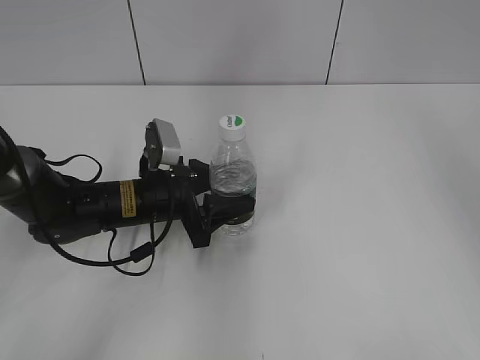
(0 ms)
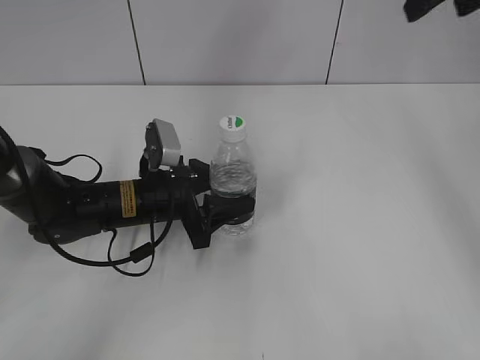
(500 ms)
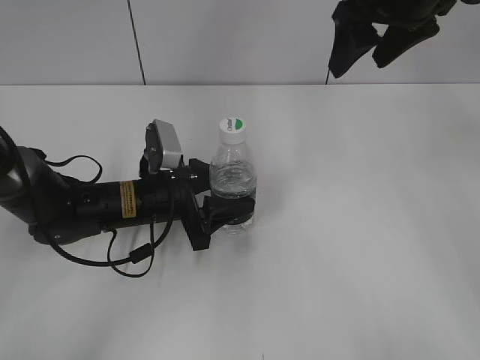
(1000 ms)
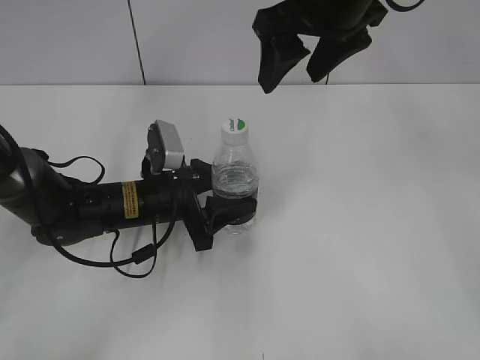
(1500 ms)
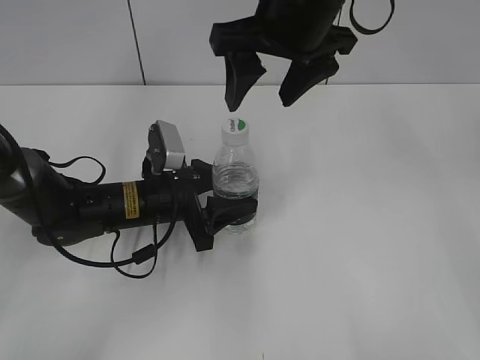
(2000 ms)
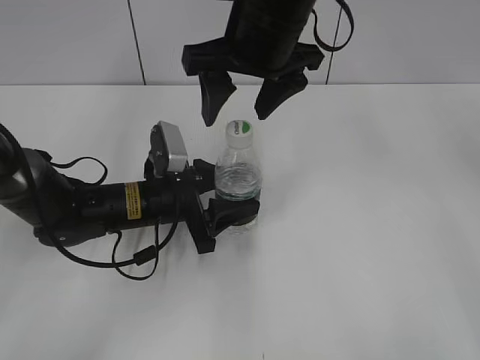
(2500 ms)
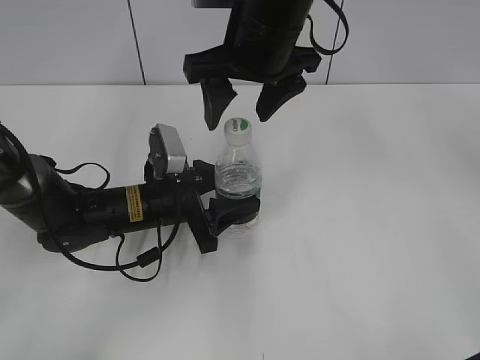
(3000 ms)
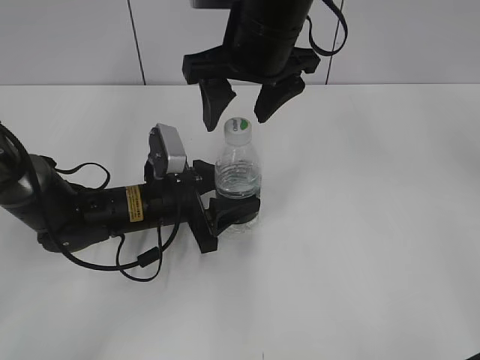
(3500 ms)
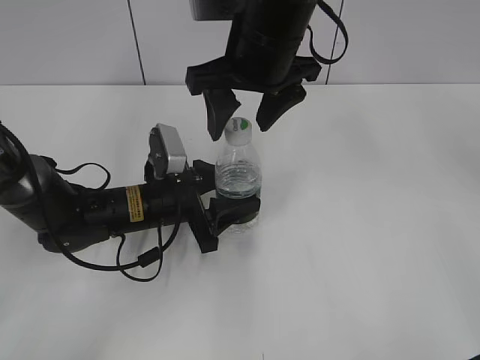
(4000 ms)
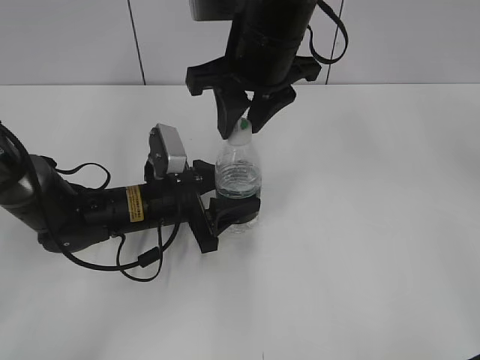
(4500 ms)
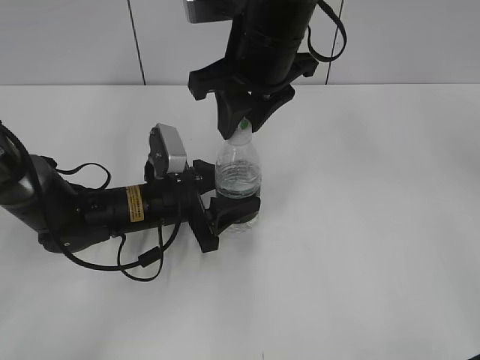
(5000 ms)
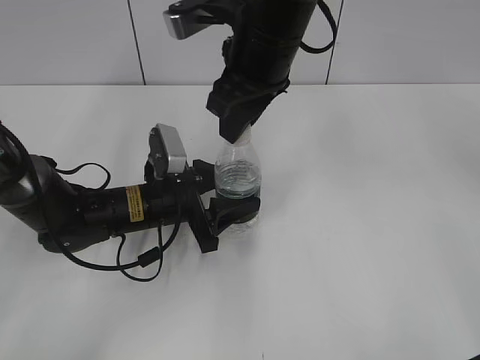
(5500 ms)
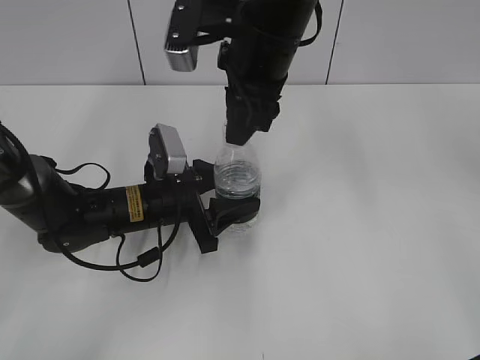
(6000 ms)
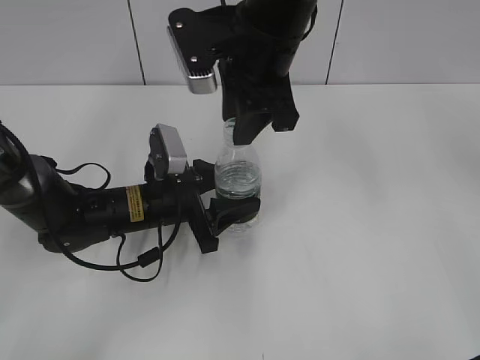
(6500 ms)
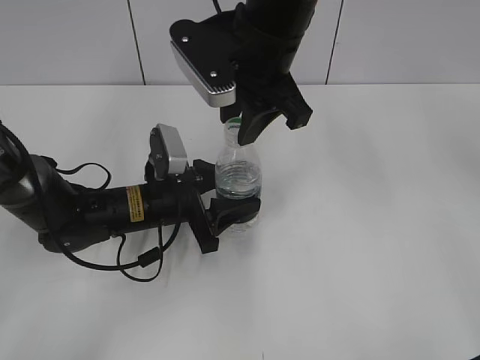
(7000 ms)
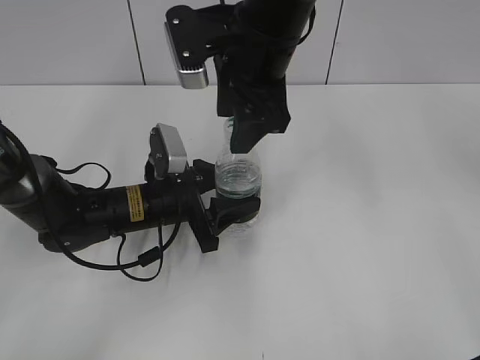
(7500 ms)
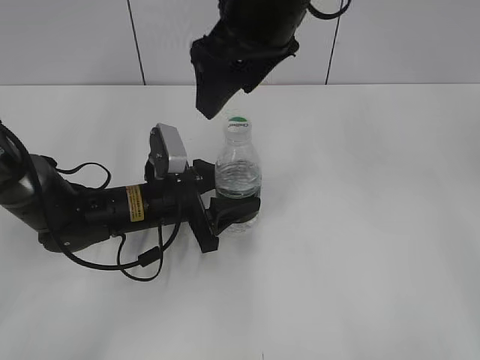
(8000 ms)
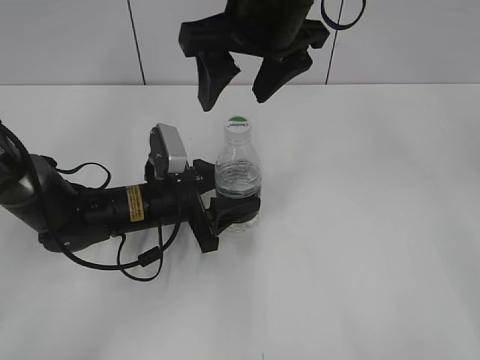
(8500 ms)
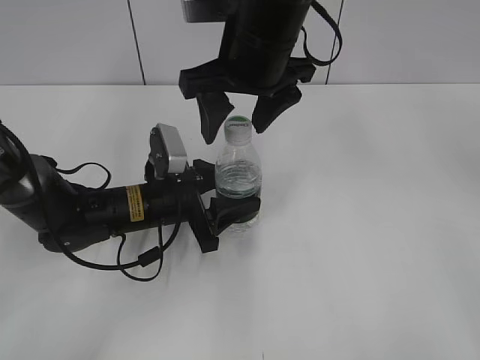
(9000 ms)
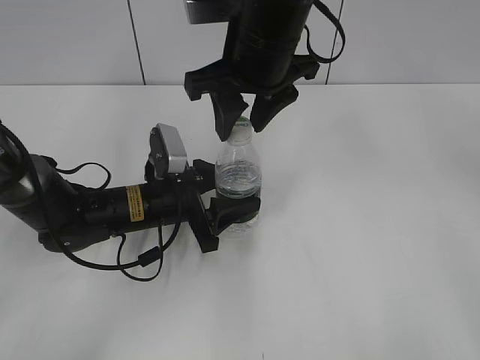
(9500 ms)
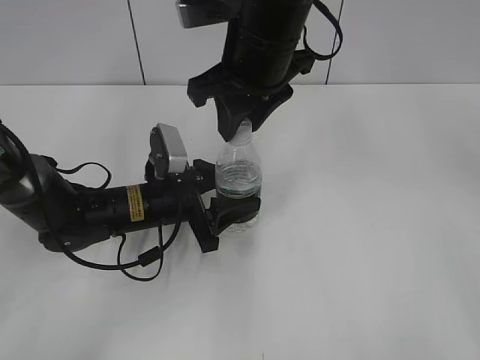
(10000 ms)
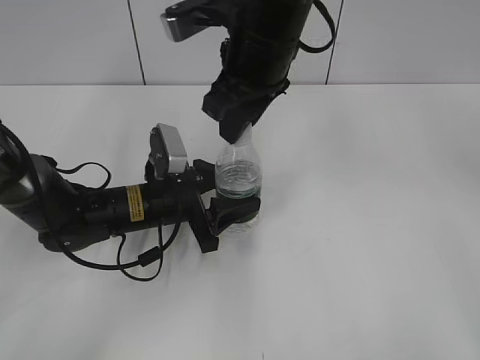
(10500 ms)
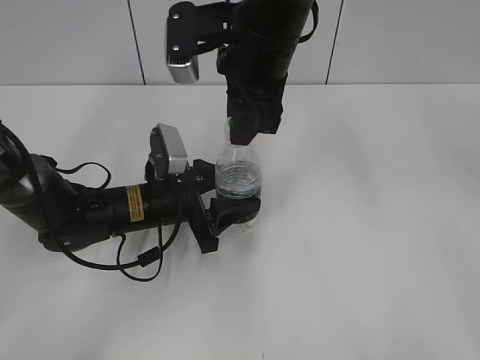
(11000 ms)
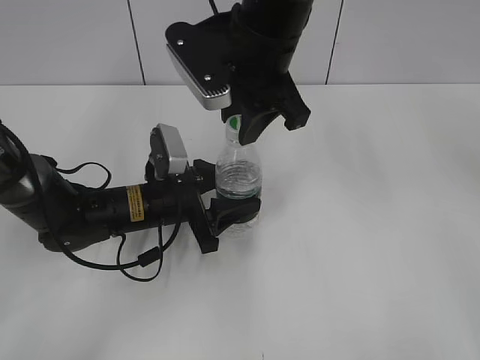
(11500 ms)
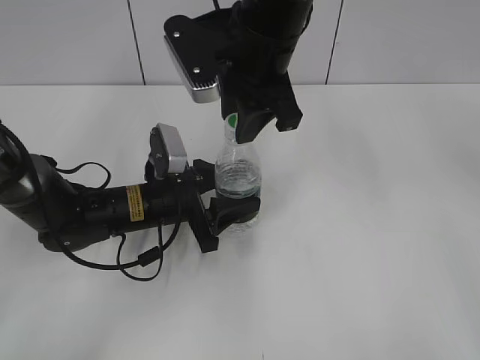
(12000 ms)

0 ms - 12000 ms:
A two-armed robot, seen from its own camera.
0 ms - 2000 ms: The right gripper moves to the left and downward, about 25 cm.
2000 ms - 4000 ms: The grippers move only a little.
4000 ms - 6000 ms: The right gripper closes up.
6000 ms - 8000 ms: The right gripper moves approximately 5 cm, and opens up.
8000 ms - 10000 ms: The right gripper ends up roughly 5 cm from where it was, and closes.

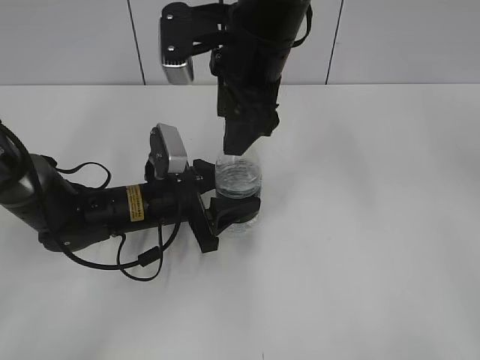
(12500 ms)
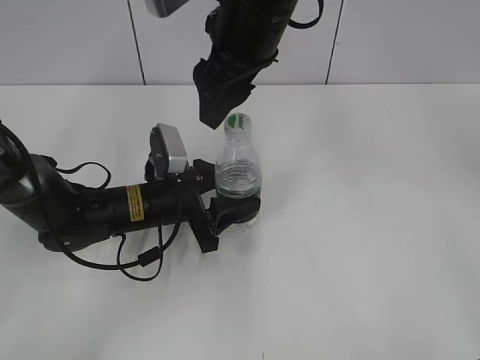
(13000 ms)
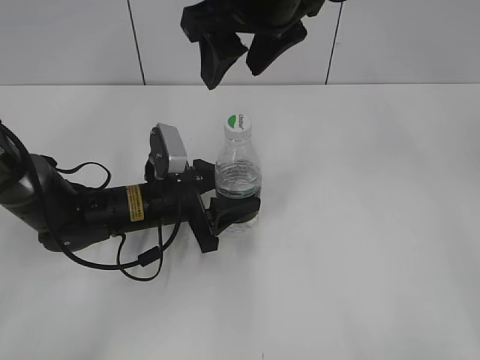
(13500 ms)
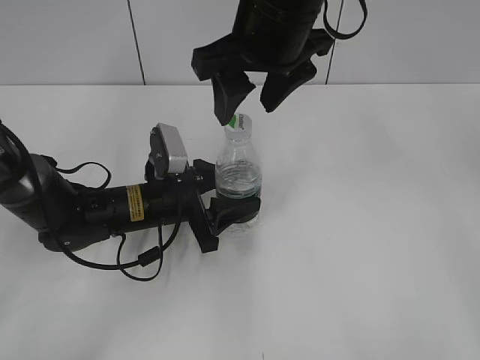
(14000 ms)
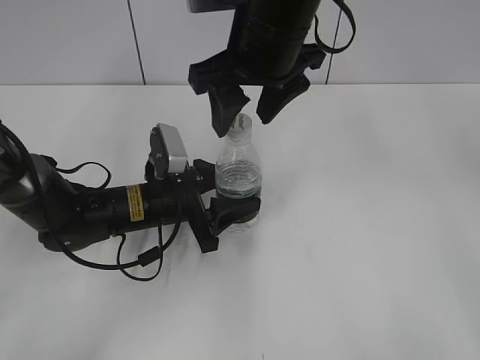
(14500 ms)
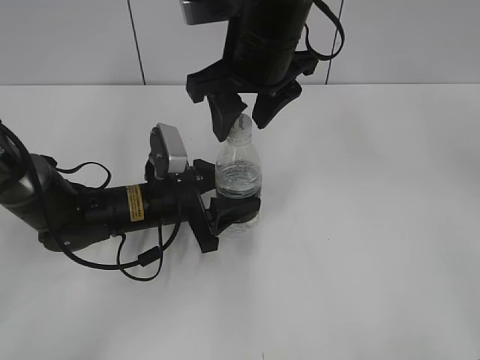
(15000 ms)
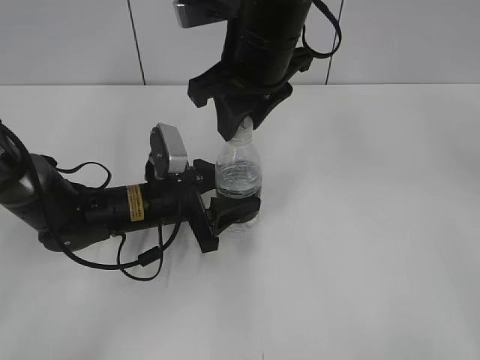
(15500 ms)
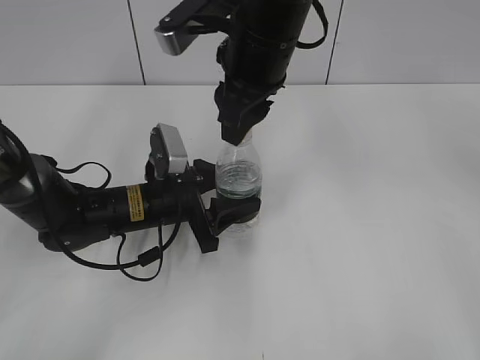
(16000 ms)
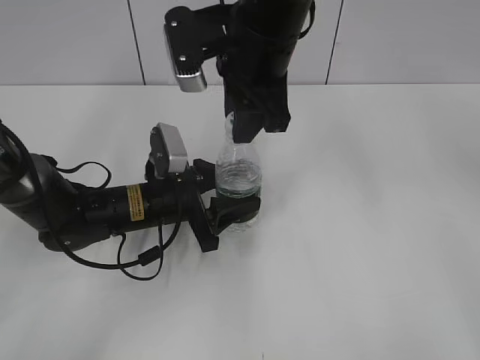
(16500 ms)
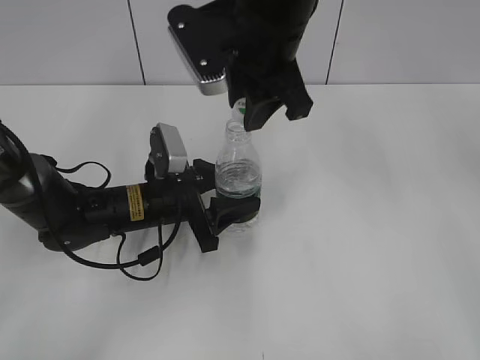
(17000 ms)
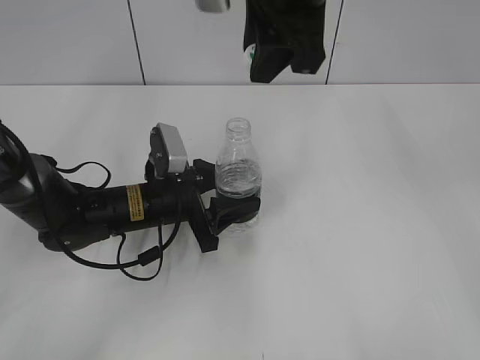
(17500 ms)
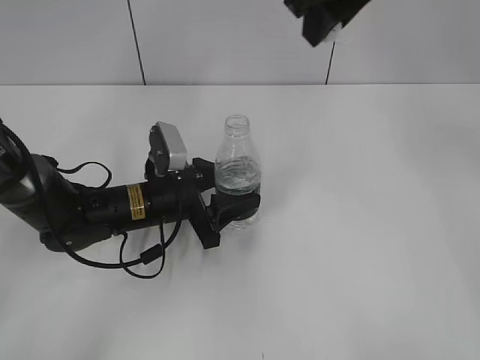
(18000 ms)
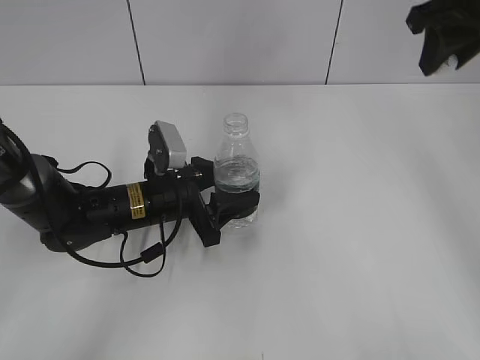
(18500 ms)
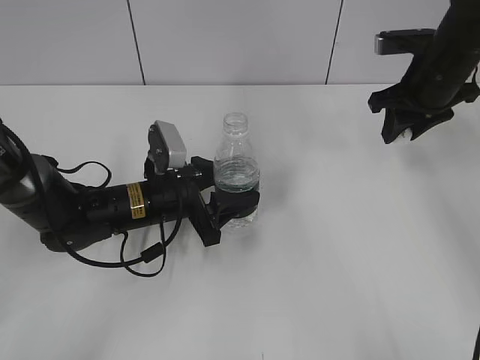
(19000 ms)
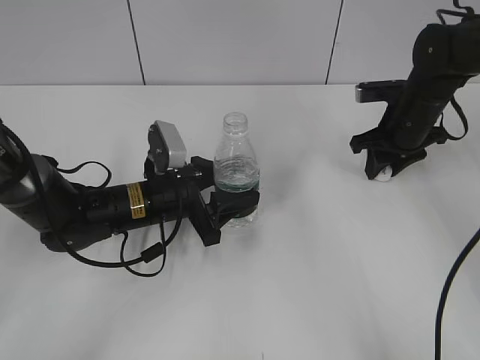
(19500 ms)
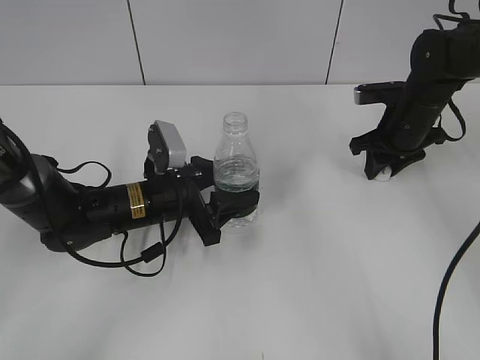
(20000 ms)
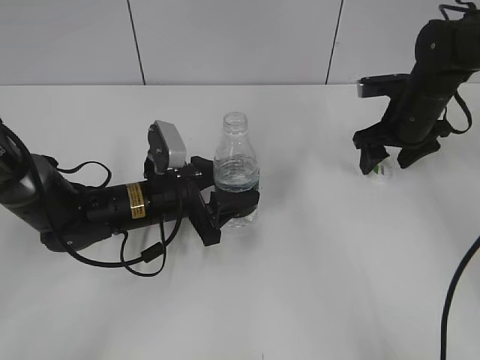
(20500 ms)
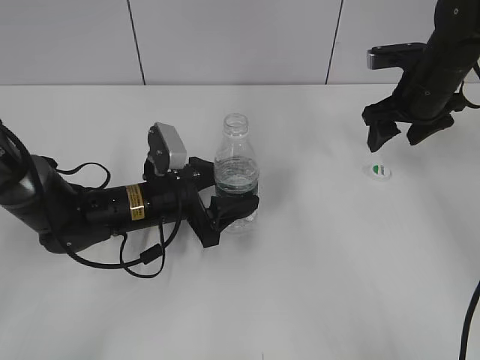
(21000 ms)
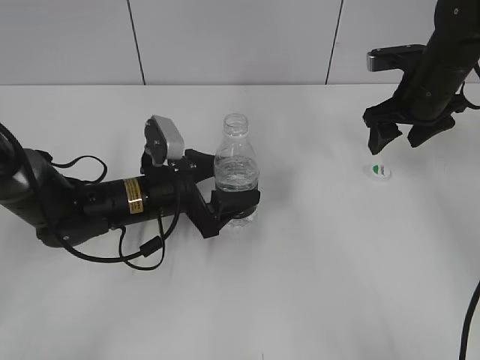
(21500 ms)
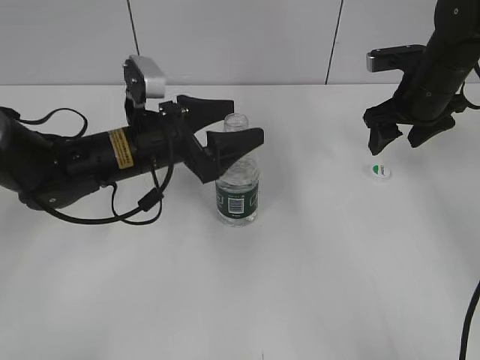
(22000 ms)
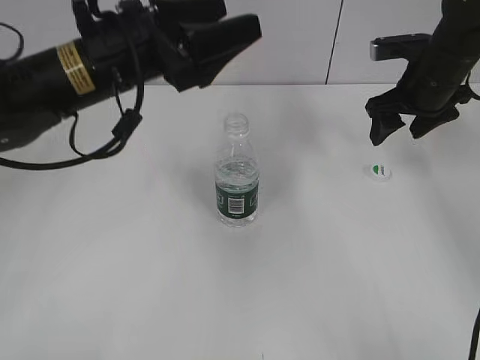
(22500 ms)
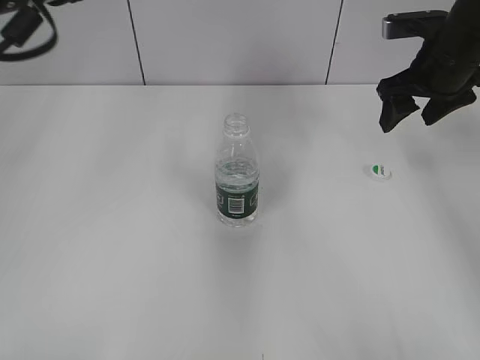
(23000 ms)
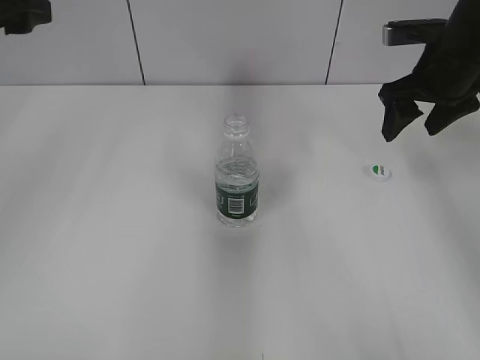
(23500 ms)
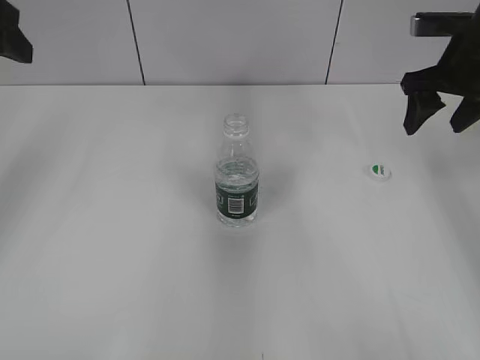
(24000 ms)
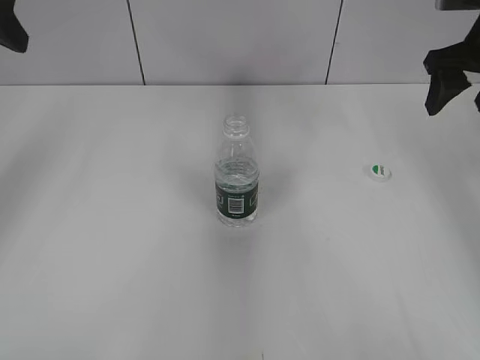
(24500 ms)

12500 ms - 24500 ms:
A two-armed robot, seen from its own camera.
Step, 12500 ms - 17000 ms: Unscrew the bottle cap with the right gripper while holding the bottle with the left gripper.
Step, 17500 ms - 20500 ms: Place the bottle cap on the table with the right gripper.
14500 ms - 16500 ms: The right gripper closes its fingers.
16500 ms - 18500 ms: The right gripper moves to the right, about 20 cm.
18500 ms - 20500 ms: The right gripper moves downward, roughly 20 cm, and opens up.
20500 ms - 22500 ms: The right gripper shifts roughly 5 cm upward, while the left gripper is displaced upward by approximately 20 cm, and opens.
22500 ms - 24500 ms: The right gripper goes about 10 cm upward; the left gripper is displaced to the left and upward by approximately 20 cm.

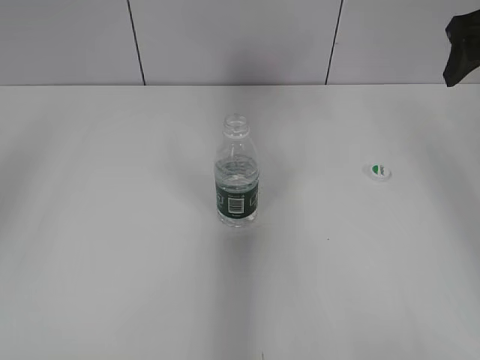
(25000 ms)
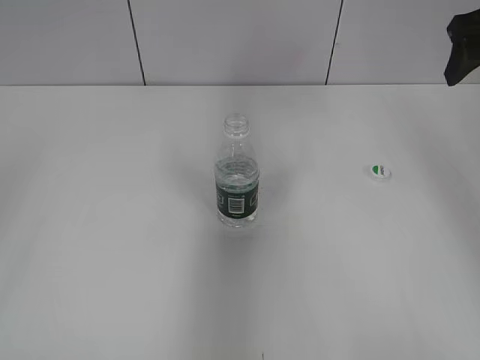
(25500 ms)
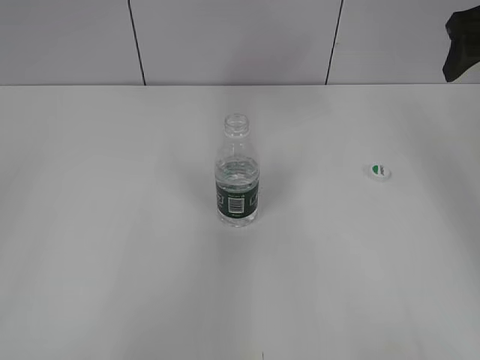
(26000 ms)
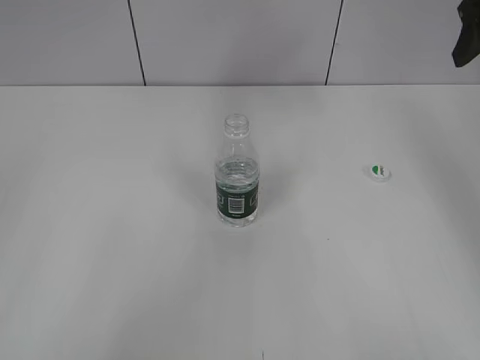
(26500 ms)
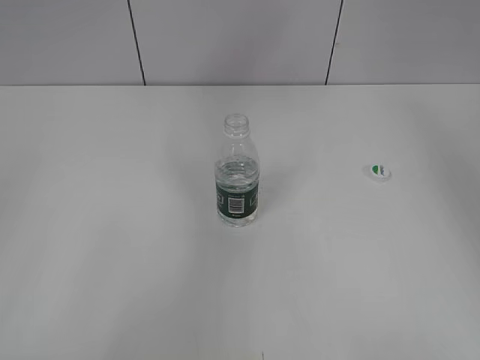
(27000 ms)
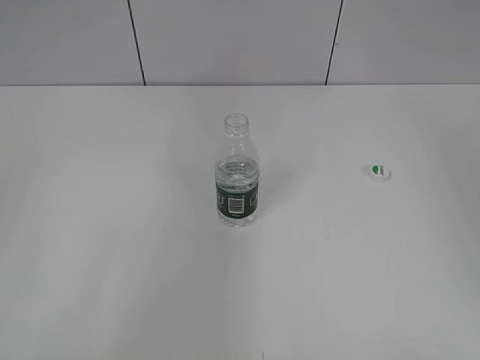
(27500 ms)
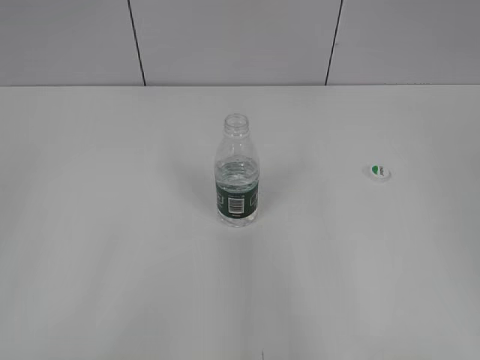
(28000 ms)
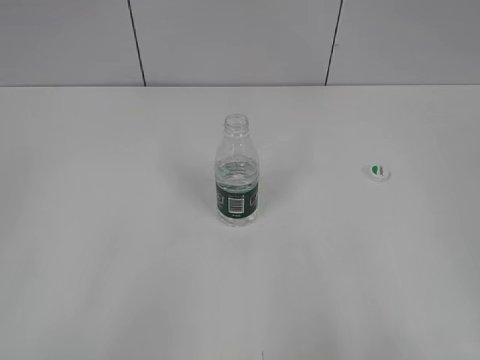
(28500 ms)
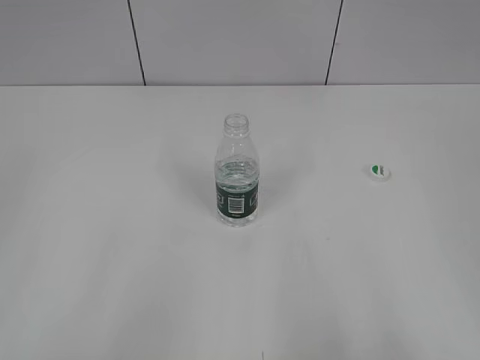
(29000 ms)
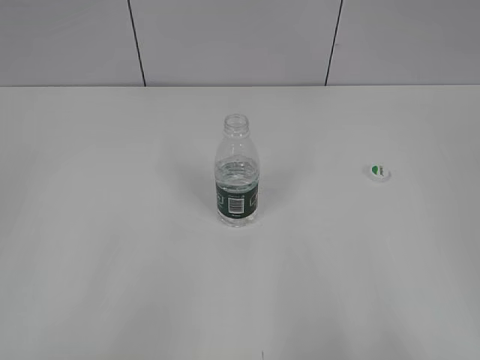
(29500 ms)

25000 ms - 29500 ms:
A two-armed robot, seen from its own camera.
25000 ms - 27000 ms: The right gripper is displaced upward and backward by some 10 cm. The left gripper shifts roughly 25 cm backward and downward.
27000 ms - 29500 ms: The right gripper shifts approximately 30 cm backward.
